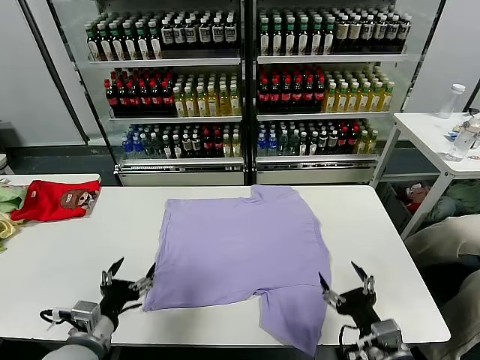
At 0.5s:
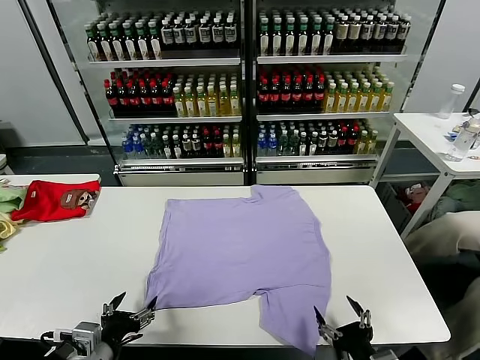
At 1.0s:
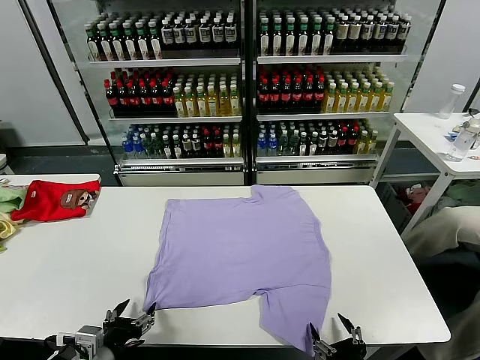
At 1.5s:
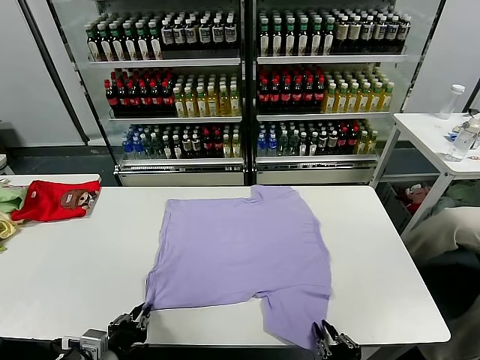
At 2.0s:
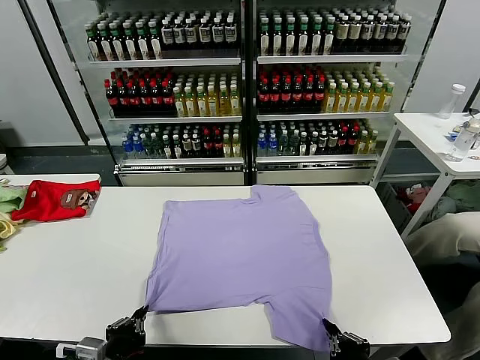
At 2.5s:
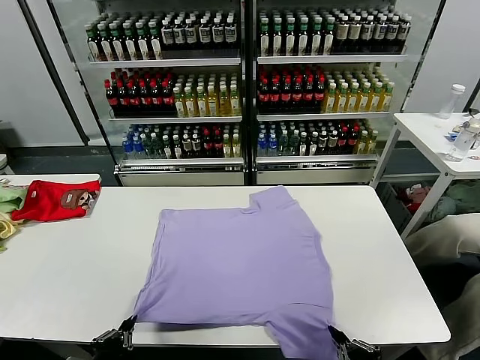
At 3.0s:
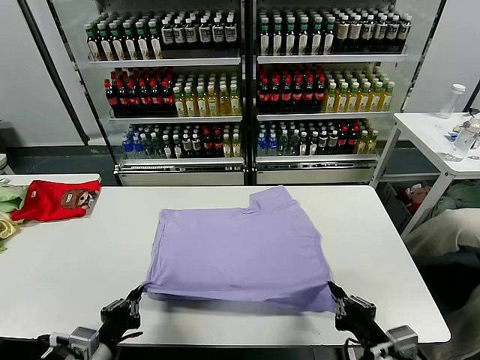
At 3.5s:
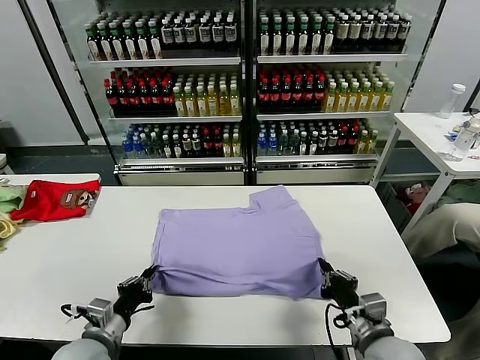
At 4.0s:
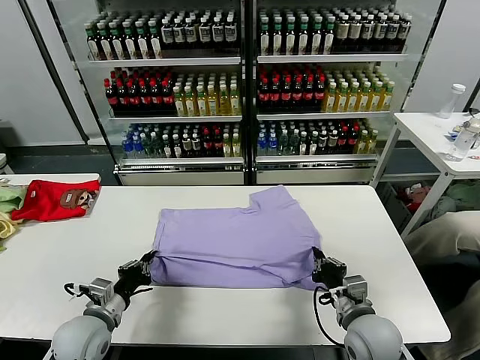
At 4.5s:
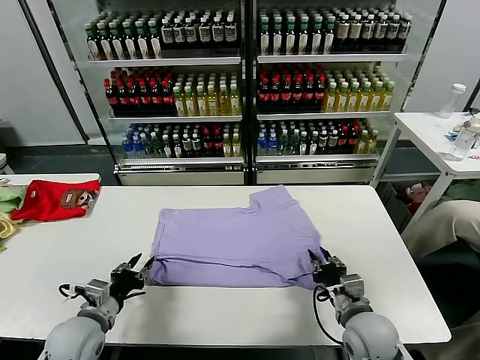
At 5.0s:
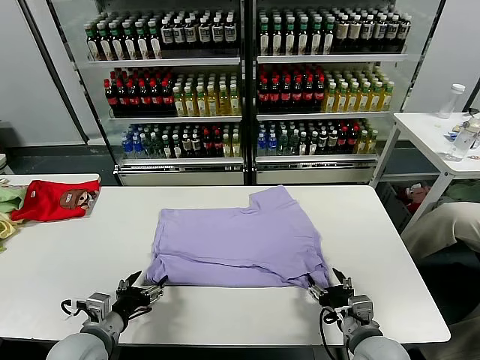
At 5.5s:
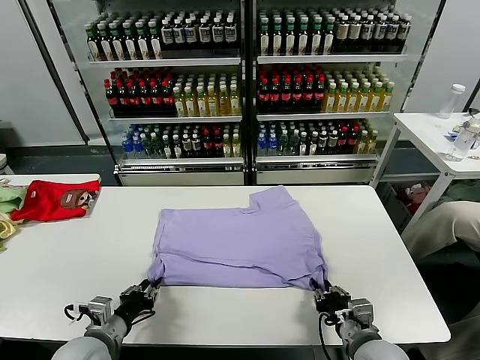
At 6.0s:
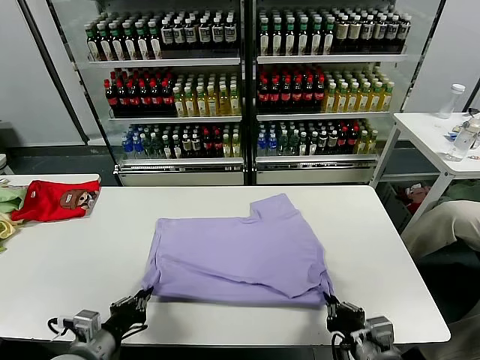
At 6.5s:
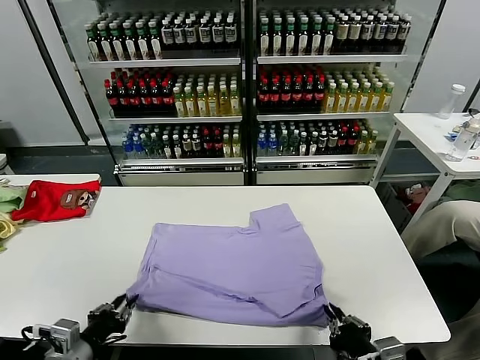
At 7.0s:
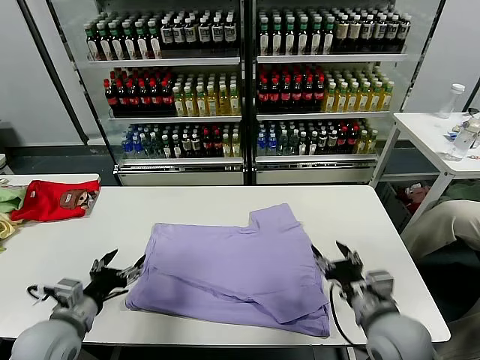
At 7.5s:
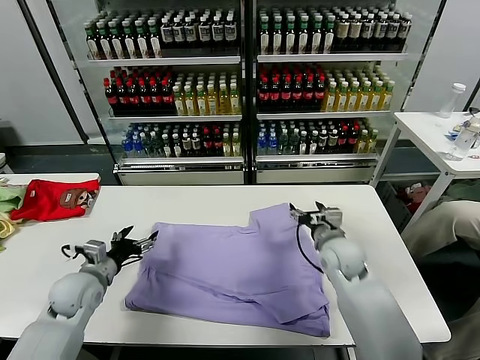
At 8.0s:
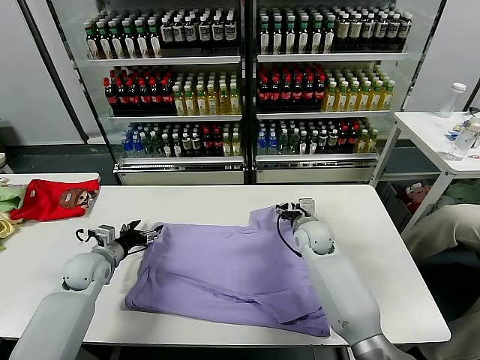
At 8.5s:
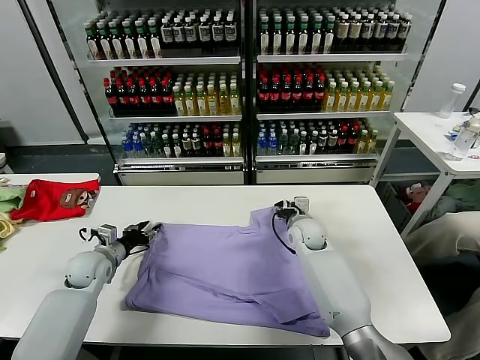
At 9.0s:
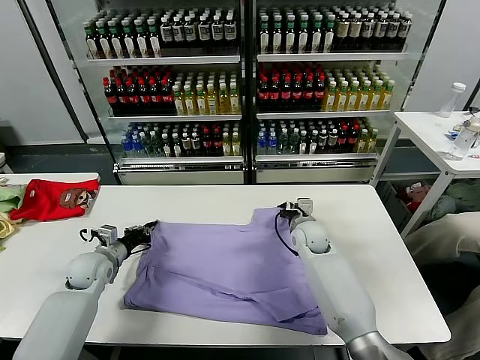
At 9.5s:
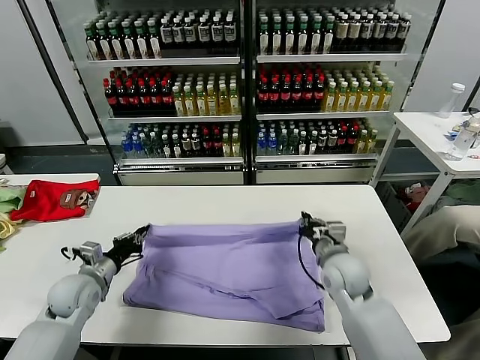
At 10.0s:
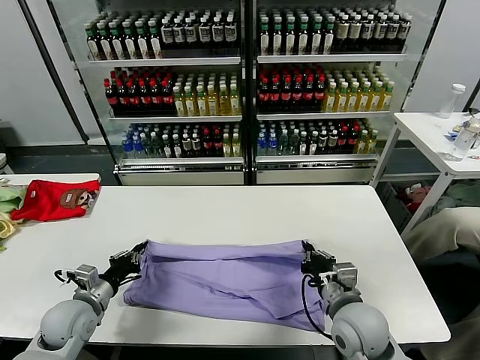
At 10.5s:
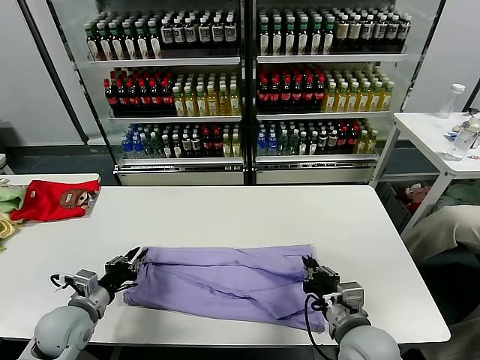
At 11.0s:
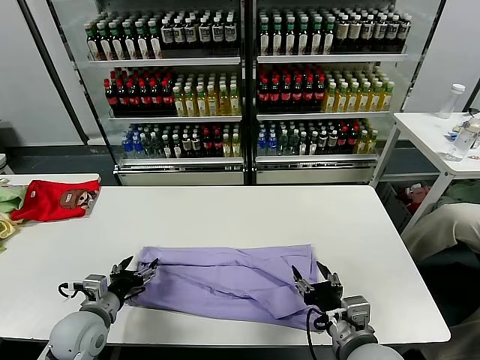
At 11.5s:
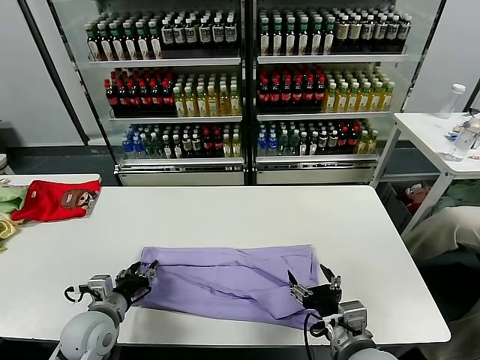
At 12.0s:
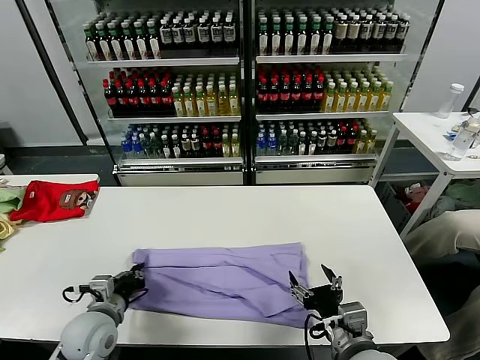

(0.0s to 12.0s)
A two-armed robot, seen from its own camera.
Task of the whole recording: fold and organize the clothes.
Step, 0.0s - 1.5s: use both grippers simultaneously to clamp the lower edge of the clothing fabric.
Step, 2.0s - 4.5s: use both grippers to drag the lower edge of the fabric forward and fold it over the upper edge.
Step, 5.0s - 6.5s: Drag the clothes downward with both gripper.
Step, 7.0s - 9.0s: use both grippers simultaneously to clamp the upper edge of the clothing fabric.
Step, 9.5s - 10.5s: use both grippers to drag the upper edge of the fabric backward and fold it over the lower edge.
Step, 11.0s - 11.5s: use the left gripper to clamp the left edge of the fabric.
2.0s - 4.0s: Both grippers travel together forward, about 15 cm.
4.0s - 6.0s: The right gripper is displaced backward by roughly 10 cm, and opens and closes again. The left gripper travels backward by roughly 10 cm, and opens, then closes once more.
6.0s - 8.0s: The left gripper travels forward by approximately 25 cm, and opens its fingers. The right gripper heads forward, covering some 35 cm, and opens up.
8.0s - 10.0s: The left gripper travels backward by about 10 cm, and closes. The right gripper moves backward, some 25 cm, and closes up.
10.0s - 12.0s: The left gripper is displaced to the right by approximately 5 cm, and opens, then closes once more; the right gripper goes some 10 cm backward, and opens up.

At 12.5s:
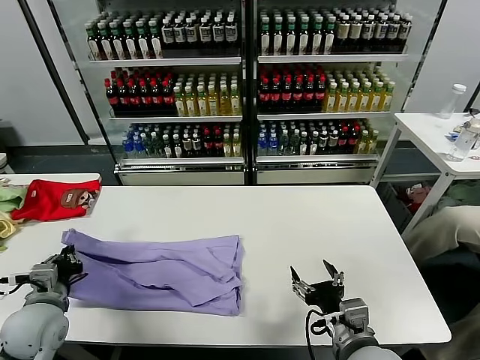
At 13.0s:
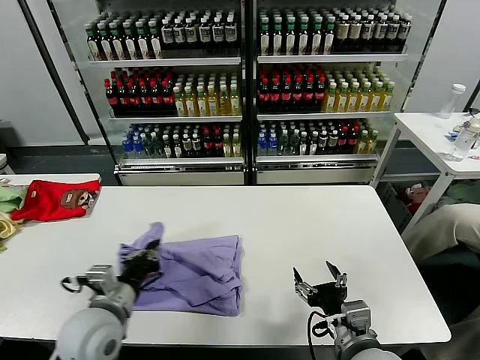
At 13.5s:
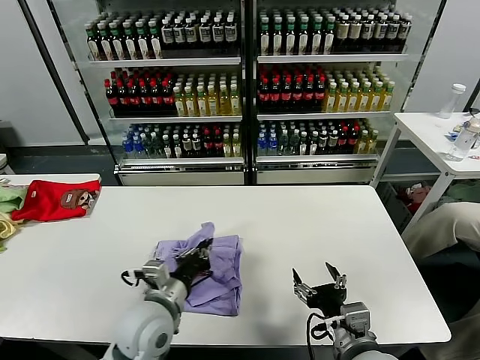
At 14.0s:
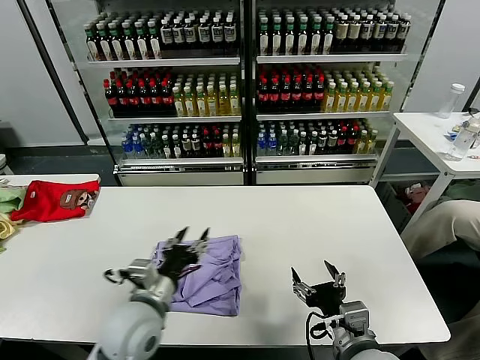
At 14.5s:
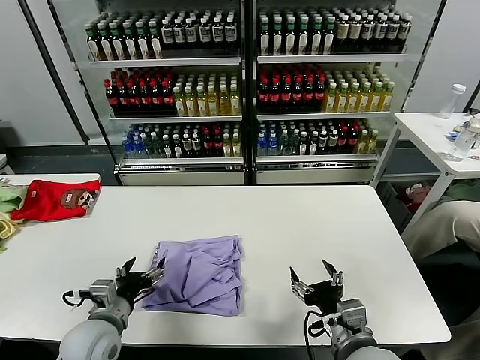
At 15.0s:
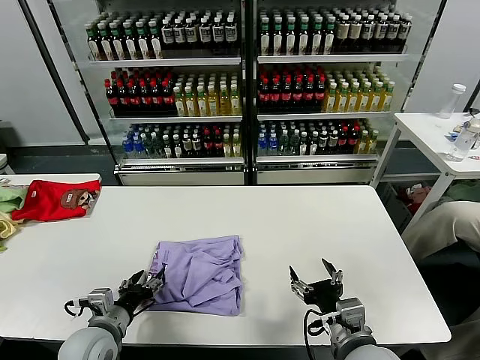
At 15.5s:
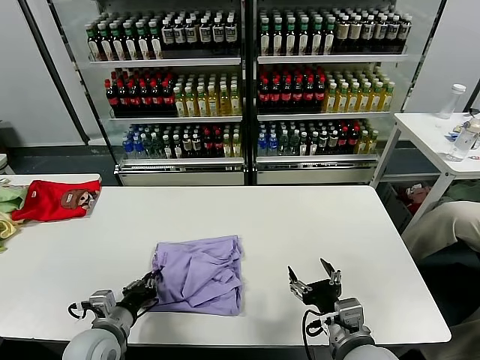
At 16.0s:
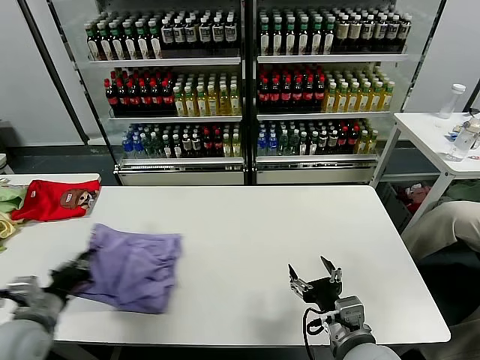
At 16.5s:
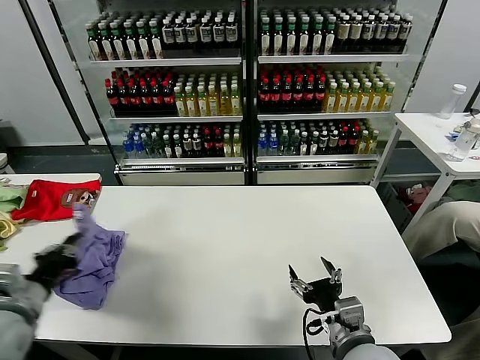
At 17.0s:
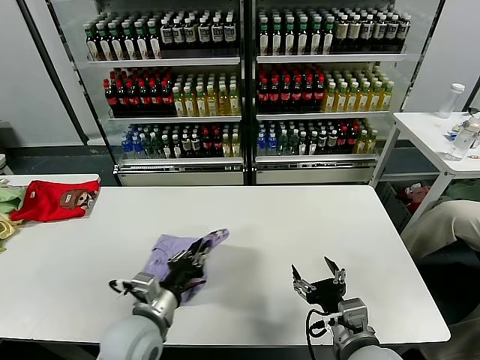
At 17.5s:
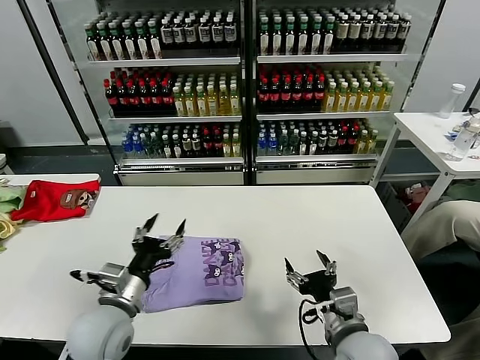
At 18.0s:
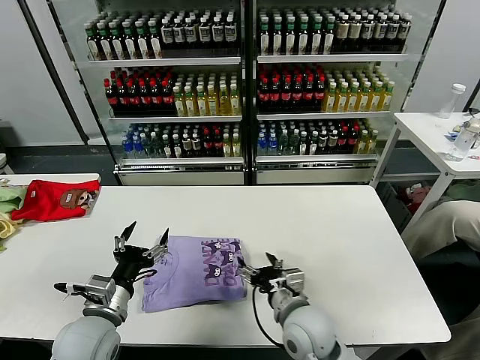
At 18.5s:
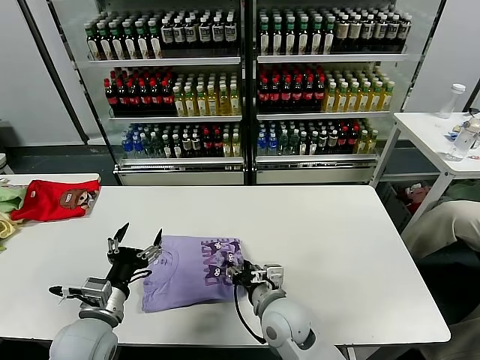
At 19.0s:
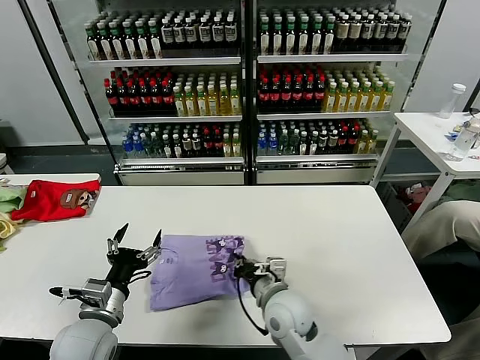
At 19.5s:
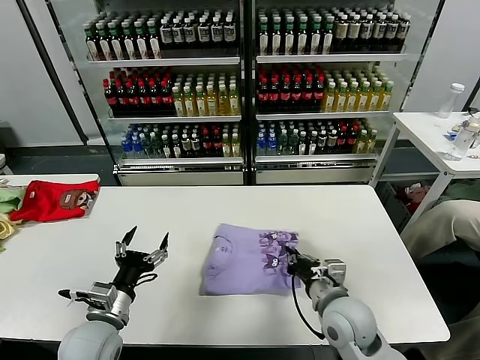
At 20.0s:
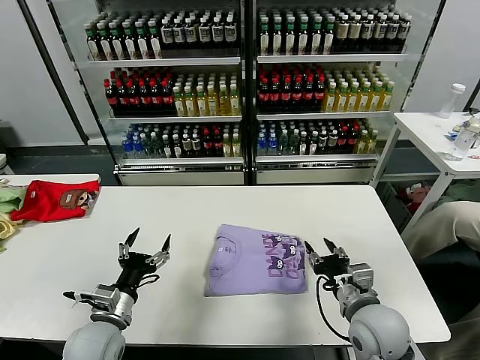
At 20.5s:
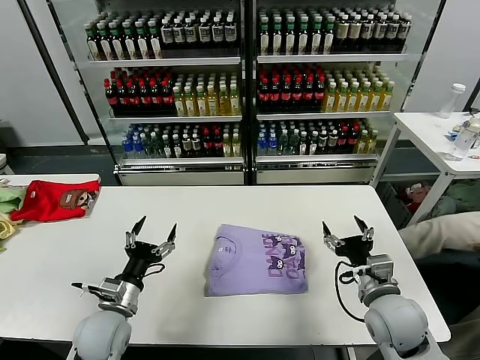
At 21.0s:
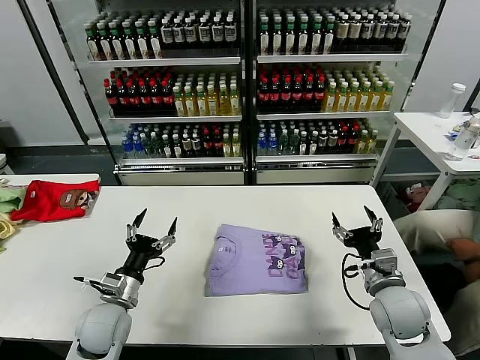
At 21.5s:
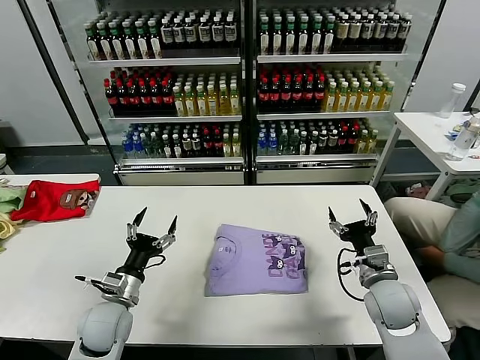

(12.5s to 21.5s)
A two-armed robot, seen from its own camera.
Task of the whole recording: fold and organize the clothes.
Step, 12.5s - 13.5s: use the left gripper to drag the left edge of the fabric to the left and folds it over the right edge.
Step, 14.0s - 17.0s: Flip the folded clothes over with left gripper.
Step, 17.5s - 20.0s: Drag the clothes to the center of the table.
12.5s - 14.5s: The left gripper is displaced to the right by some 10 cm, and opens up.
14.5s - 17.0s: The left gripper heads to the right, covering some 10 cm, and closes up.
17.0s - 19.5s: The left gripper shifts roughly 5 cm to the left, and opens up, while the right gripper moves forward, roughly 10 cm, moves roughly 10 cm to the left and comes back, and closes up.
19.5s - 21.5s: The right gripper shifts about 10 cm to the right, and opens. The left gripper travels forward by some 5 cm.

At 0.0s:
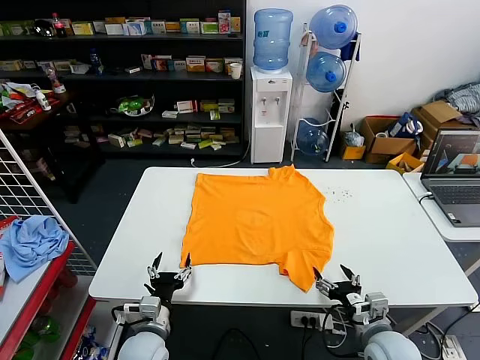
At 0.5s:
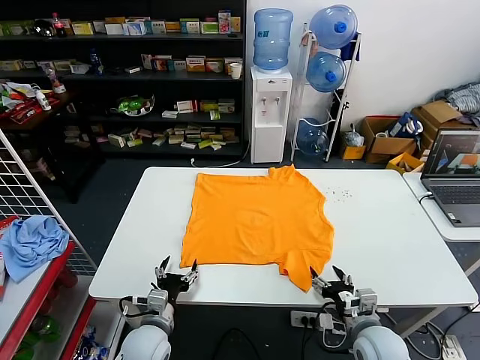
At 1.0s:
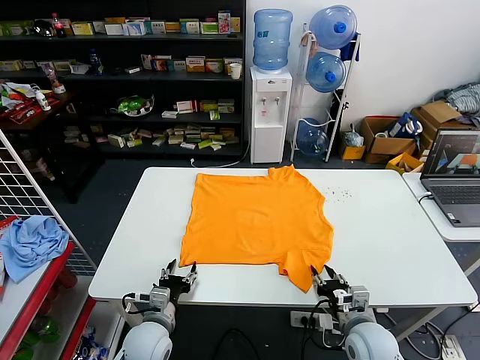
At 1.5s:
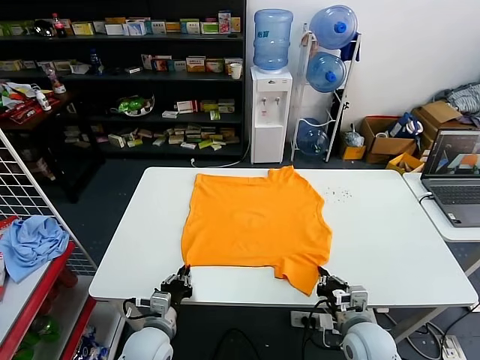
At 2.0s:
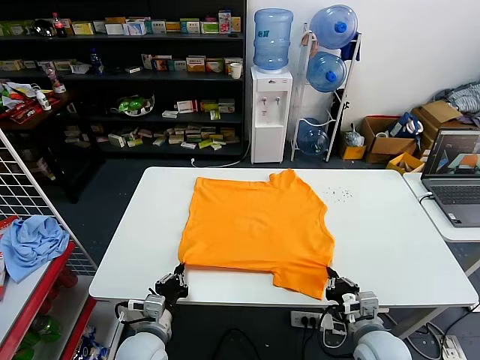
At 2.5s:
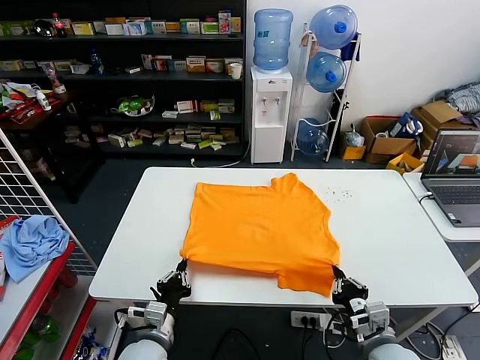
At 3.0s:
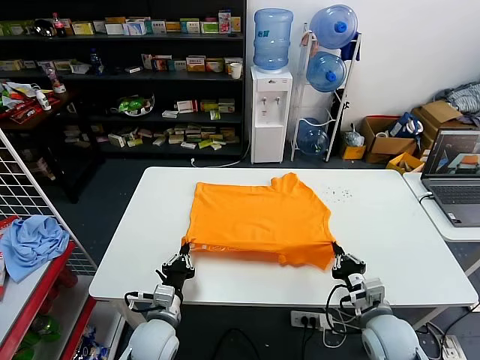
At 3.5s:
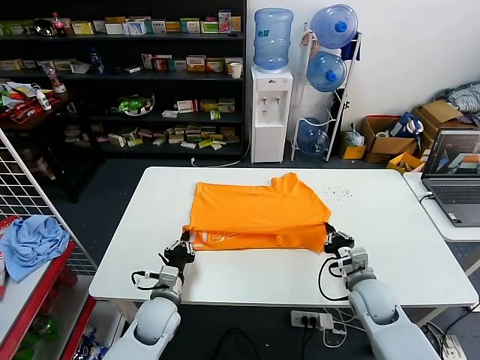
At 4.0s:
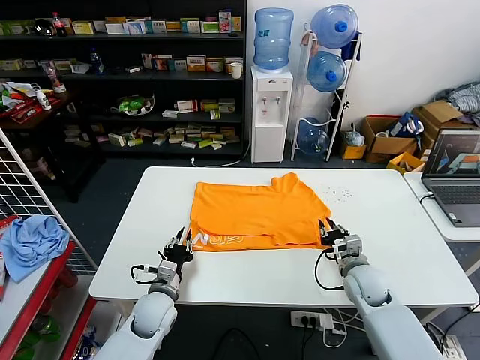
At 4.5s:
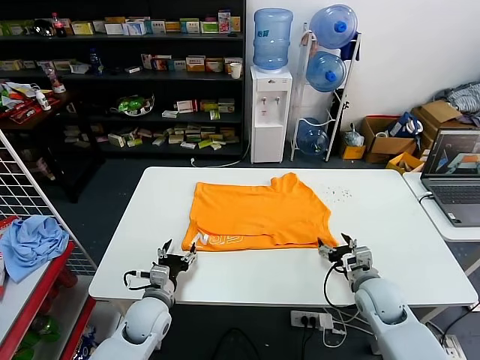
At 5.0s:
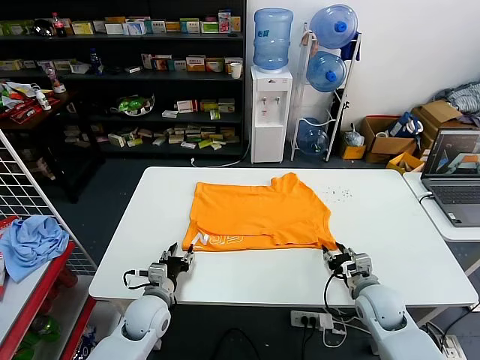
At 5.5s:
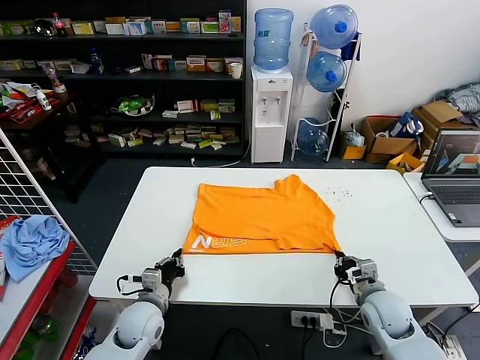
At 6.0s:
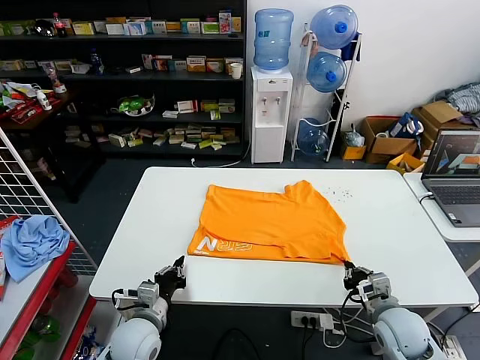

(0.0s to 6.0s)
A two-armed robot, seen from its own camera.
Task of the whole recording: fold and organize the clothes.
Step, 0.0s - 1.5s: use both grippers simultaneously to clamp the lower edge of the clothing fabric.
Step, 2.0s - 4.0s: use both grippers to drag the lower edge of the fabric forward and fold it over the upper edge.
2.0s - 4.0s: The left gripper travels forward by roughly 10 cm. The right gripper travels forward by roughly 15 cm, and opens its fingers.
4.0s - 6.0s: The left gripper is displaced backward by some 5 cm, and opens and closes again; the right gripper is displaced backward by about 10 cm, and closes.
